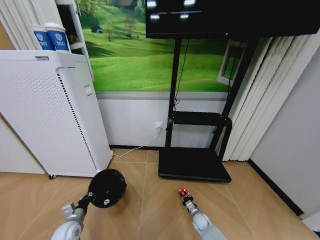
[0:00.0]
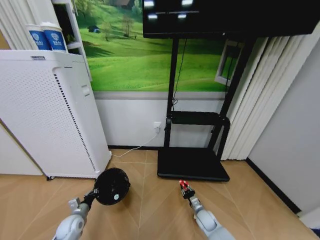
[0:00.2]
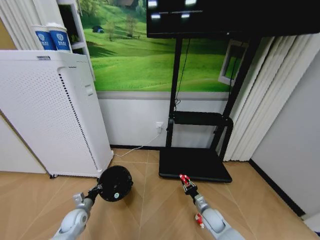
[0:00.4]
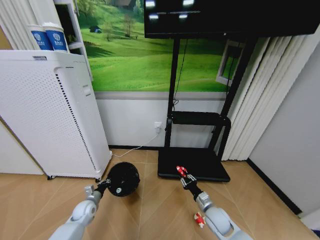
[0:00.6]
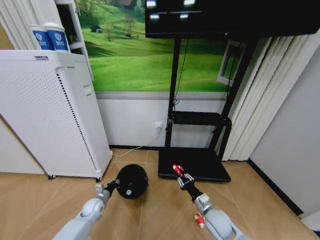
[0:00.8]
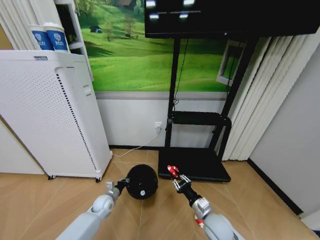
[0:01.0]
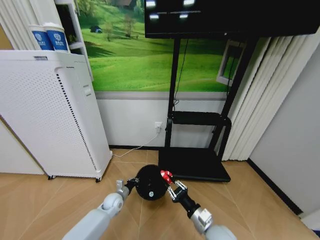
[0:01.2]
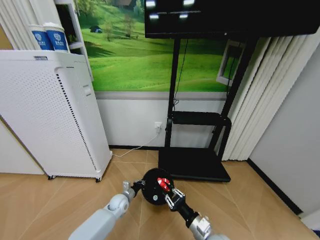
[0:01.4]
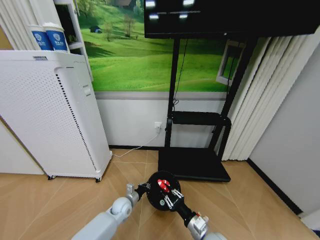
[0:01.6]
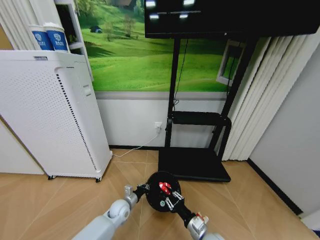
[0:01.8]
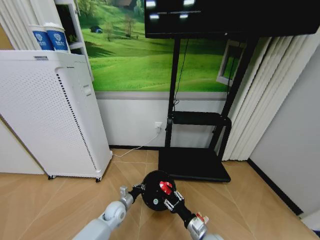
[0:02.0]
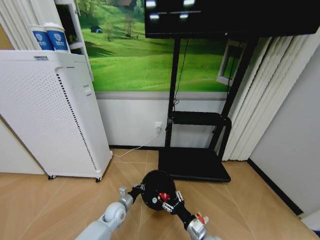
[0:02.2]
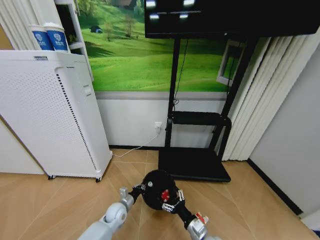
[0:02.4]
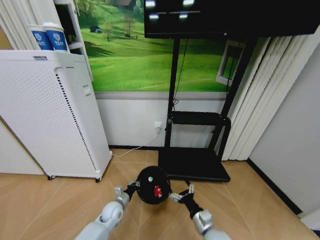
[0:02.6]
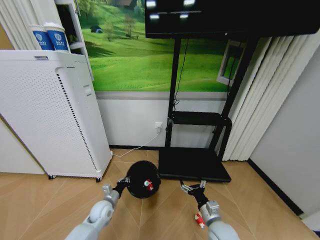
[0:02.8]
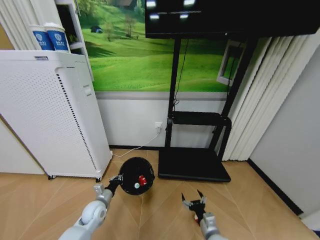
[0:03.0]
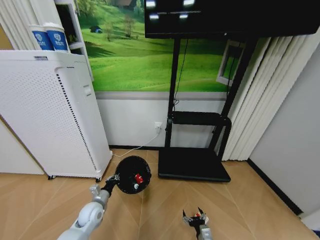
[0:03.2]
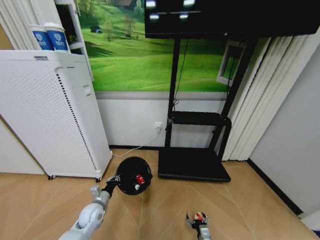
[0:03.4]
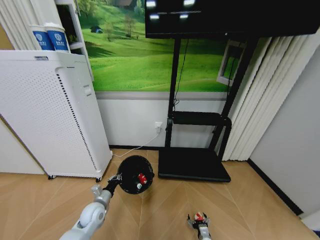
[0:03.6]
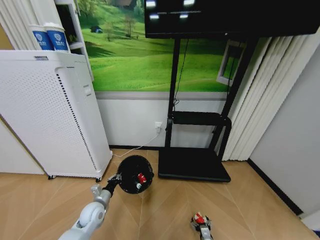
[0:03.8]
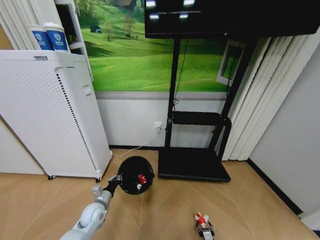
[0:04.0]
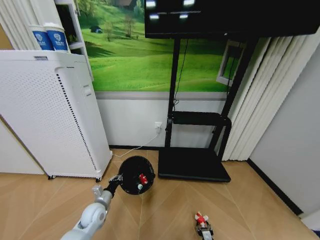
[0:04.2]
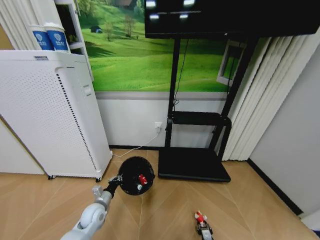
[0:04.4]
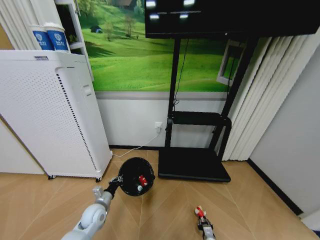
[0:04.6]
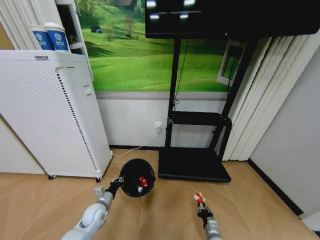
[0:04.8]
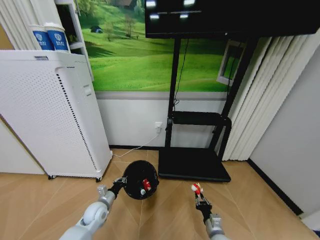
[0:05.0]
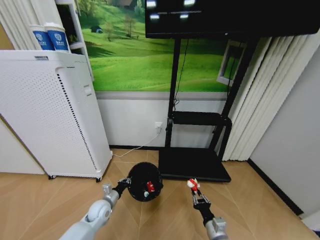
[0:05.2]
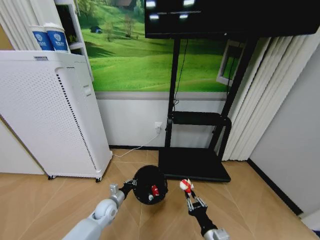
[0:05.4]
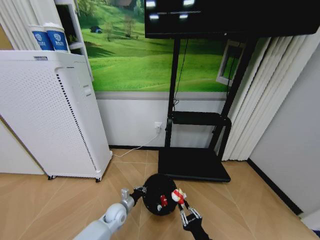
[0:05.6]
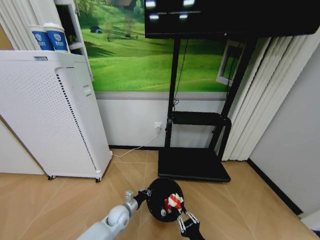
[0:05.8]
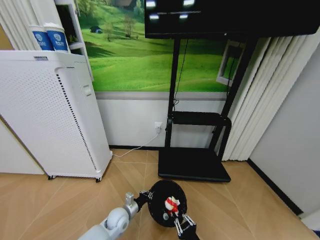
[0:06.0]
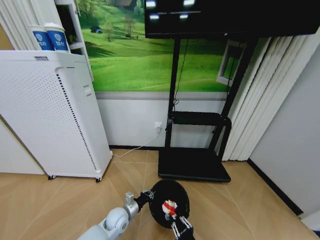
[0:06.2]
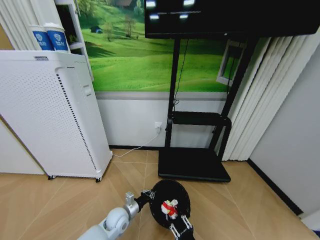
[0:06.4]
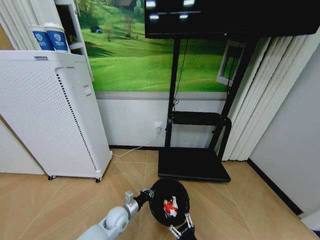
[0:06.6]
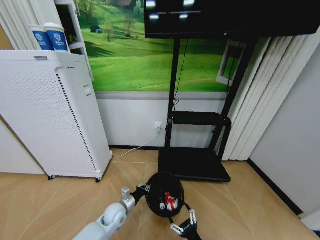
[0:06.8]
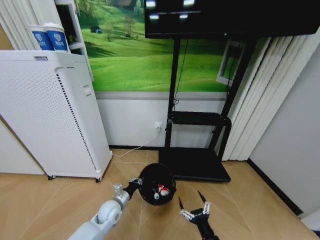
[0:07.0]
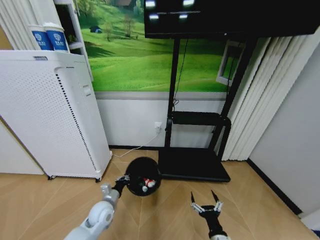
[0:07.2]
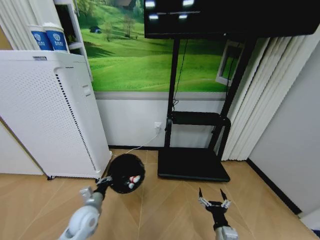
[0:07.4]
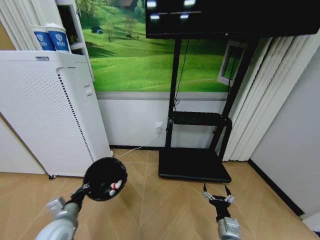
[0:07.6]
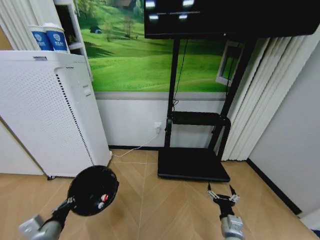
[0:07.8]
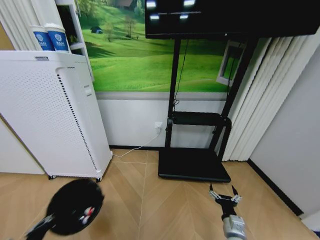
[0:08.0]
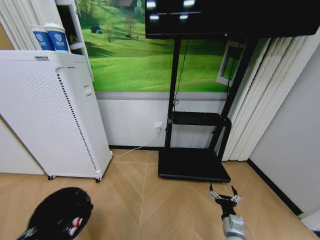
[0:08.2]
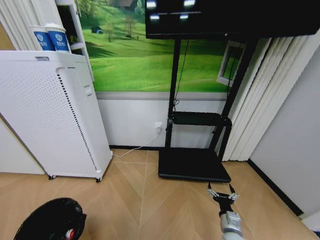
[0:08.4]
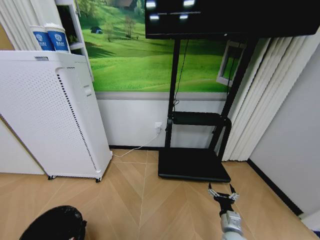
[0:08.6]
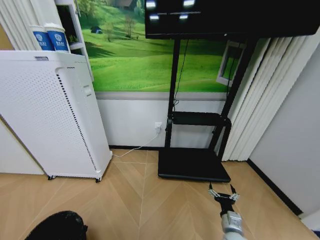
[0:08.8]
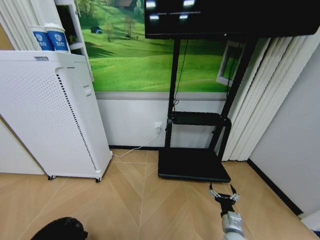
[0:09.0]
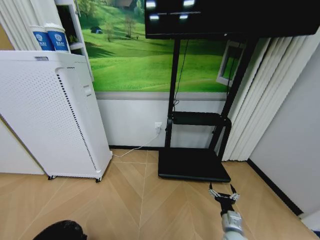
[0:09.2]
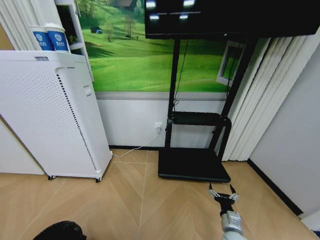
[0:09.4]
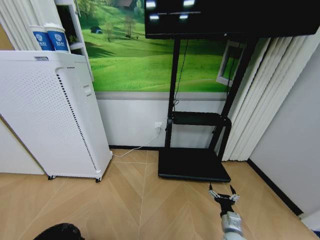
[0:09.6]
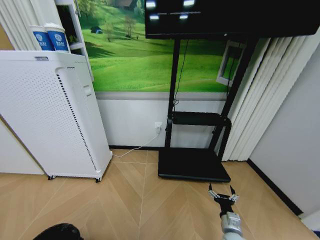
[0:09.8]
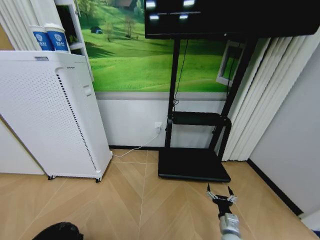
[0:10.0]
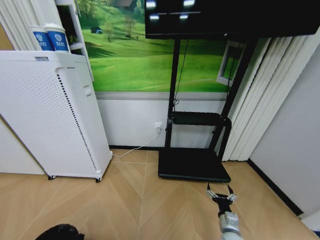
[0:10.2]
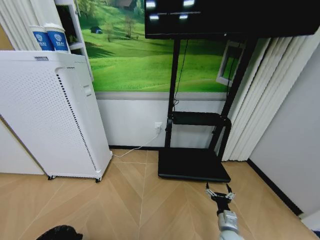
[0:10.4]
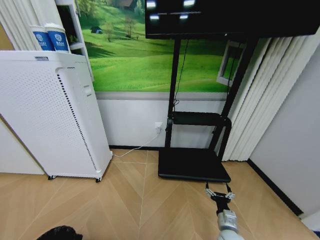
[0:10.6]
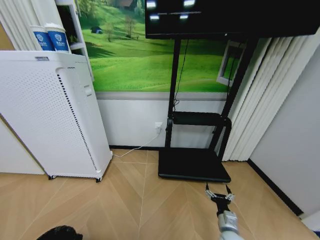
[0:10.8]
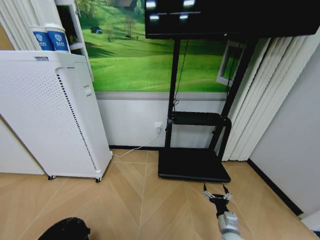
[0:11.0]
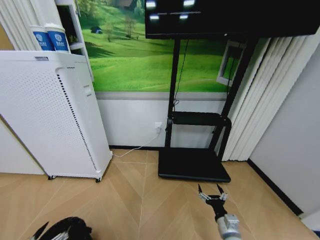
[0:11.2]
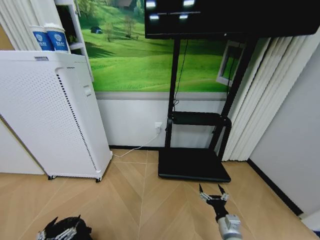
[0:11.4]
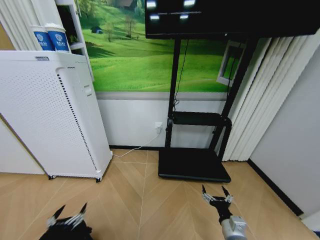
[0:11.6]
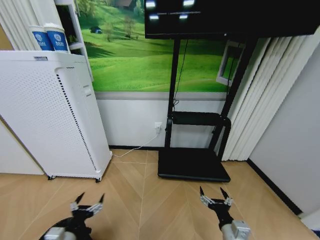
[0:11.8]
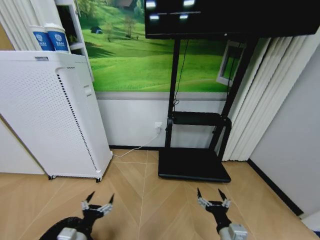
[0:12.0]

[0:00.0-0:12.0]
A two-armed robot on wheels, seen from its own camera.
Task of the whole recording: Pick up the trash bin and place the garbage on the floor into it.
0:00.0 to 0:01.6: The right gripper moves upward and backward, some 30 cm. The left gripper goes approximately 25 cm to the right and forward.
0:01.6 to 0:03.0: The right gripper shifts about 10 cm downward, and opens up. The left gripper moves to the left and upward, about 10 cm.
0:03.0 to 0:04.4: The right gripper is displaced downward by some 20 cm, and closes up.
0:04.4 to 0:06.0: The right gripper travels upward and backward by some 25 cm, while the left gripper shifts approximately 10 cm to the right.
0:06.0 to 0:07.6: The right gripper is displaced forward and to the right by roughly 10 cm, and opens its fingers; the left gripper moves to the left, upward and backward, approximately 25 cm.
0:07.6 to 0:09.0: The right gripper ends up approximately 5 cm from where it was; the left gripper shifts some 20 cm backward.
0:09.0 to 0:10.4: The grippers stay close to where they were, moving slightly.
0:10.4 to 0:12.0: The right gripper shifts roughly 15 cm upward, backward and to the left. Meanwhile the left gripper heads forward, to the right and upward, covering some 20 cm, and opens its fingers.

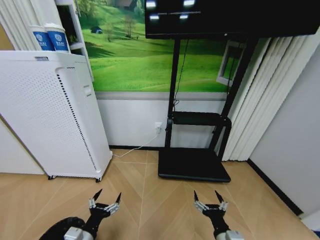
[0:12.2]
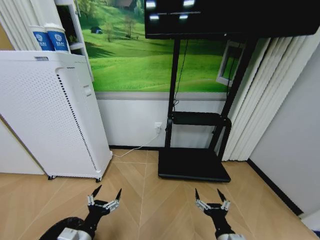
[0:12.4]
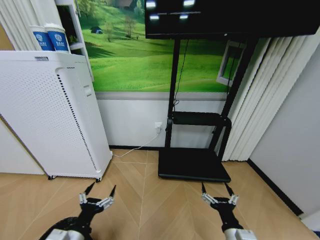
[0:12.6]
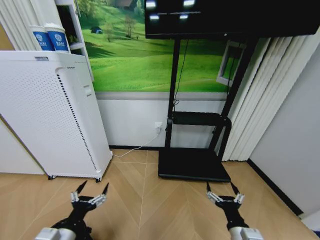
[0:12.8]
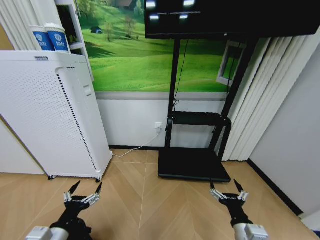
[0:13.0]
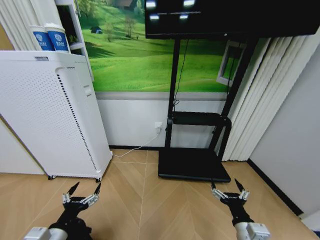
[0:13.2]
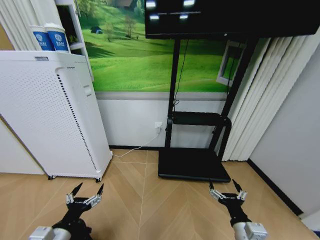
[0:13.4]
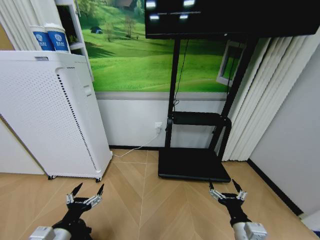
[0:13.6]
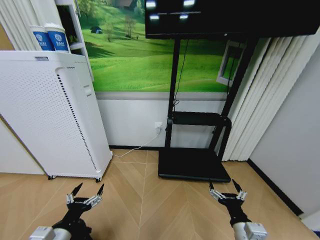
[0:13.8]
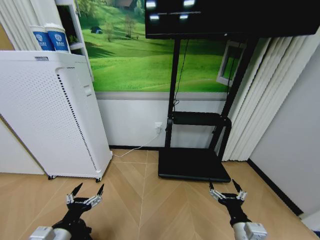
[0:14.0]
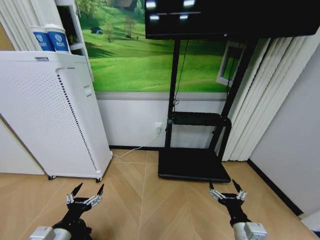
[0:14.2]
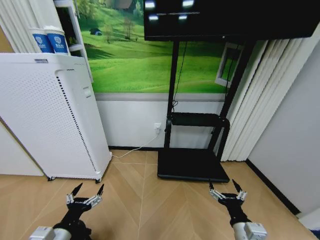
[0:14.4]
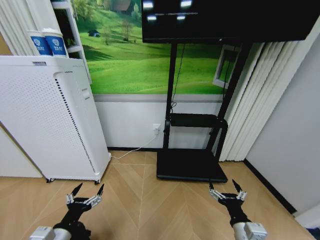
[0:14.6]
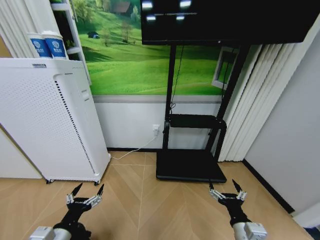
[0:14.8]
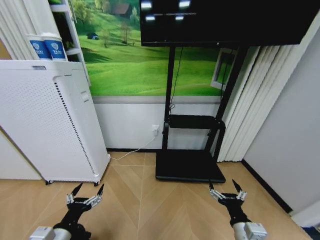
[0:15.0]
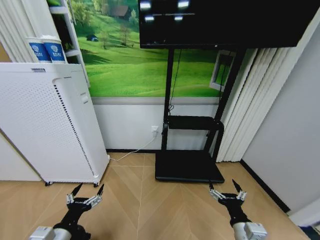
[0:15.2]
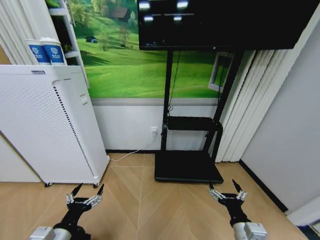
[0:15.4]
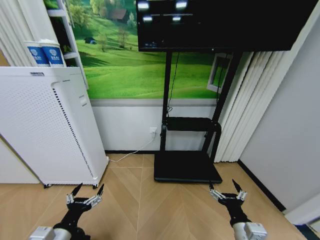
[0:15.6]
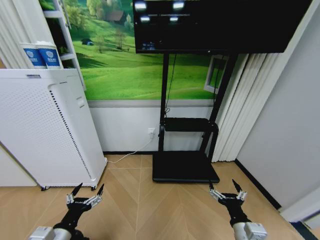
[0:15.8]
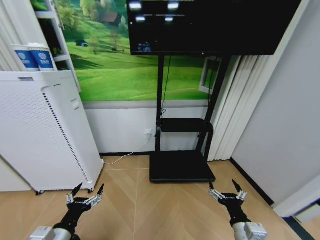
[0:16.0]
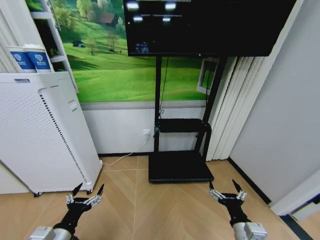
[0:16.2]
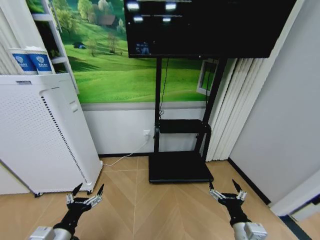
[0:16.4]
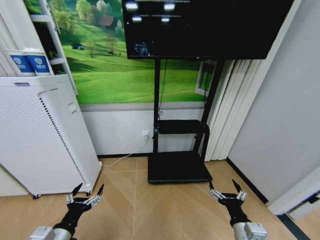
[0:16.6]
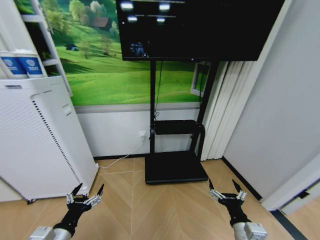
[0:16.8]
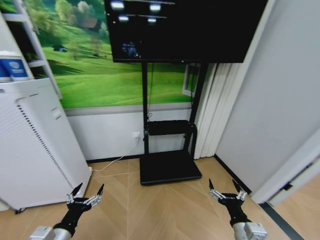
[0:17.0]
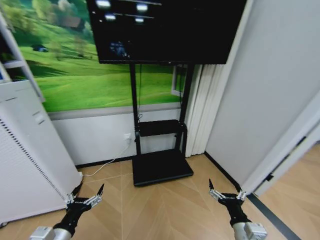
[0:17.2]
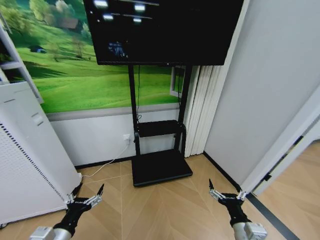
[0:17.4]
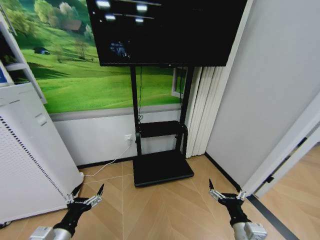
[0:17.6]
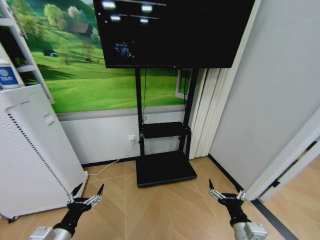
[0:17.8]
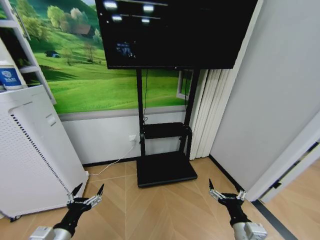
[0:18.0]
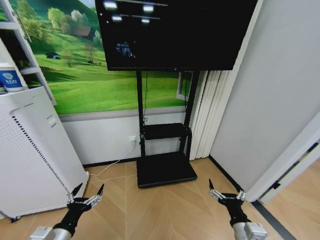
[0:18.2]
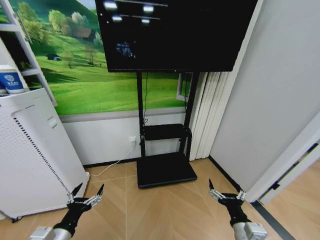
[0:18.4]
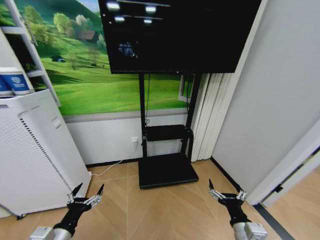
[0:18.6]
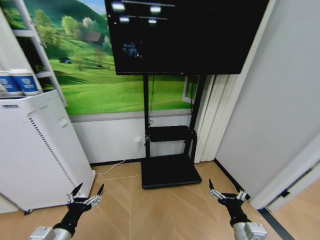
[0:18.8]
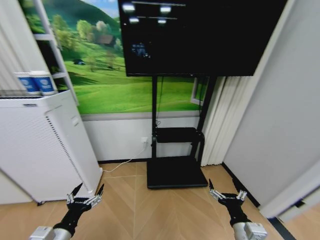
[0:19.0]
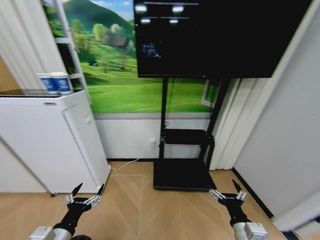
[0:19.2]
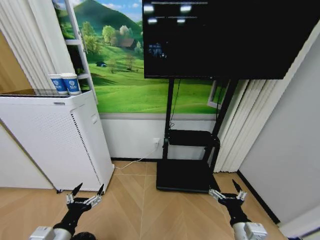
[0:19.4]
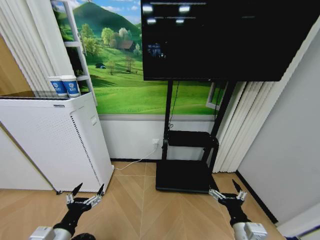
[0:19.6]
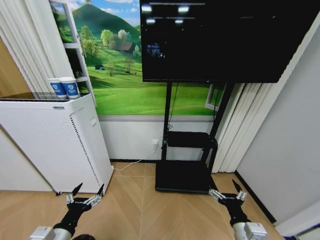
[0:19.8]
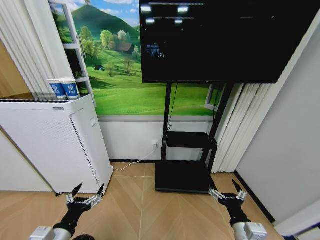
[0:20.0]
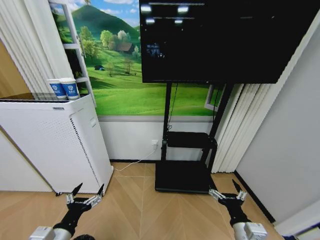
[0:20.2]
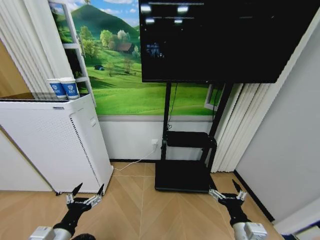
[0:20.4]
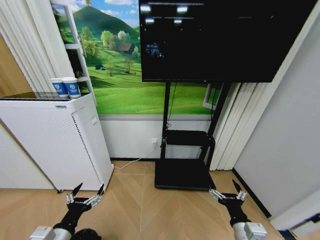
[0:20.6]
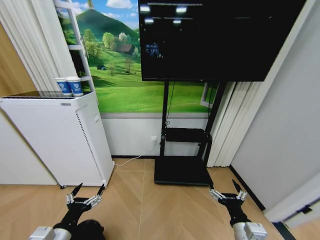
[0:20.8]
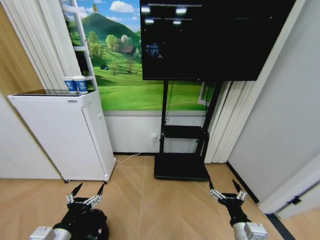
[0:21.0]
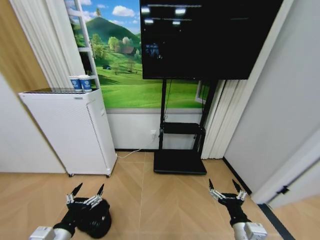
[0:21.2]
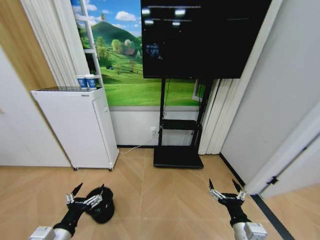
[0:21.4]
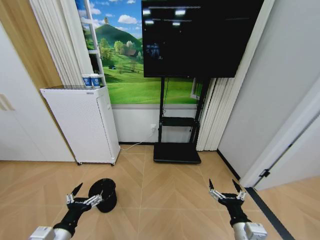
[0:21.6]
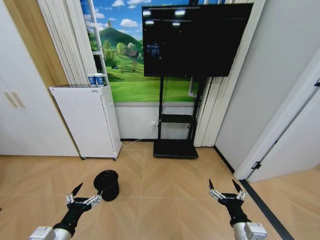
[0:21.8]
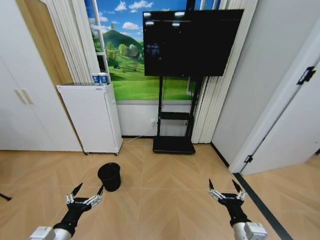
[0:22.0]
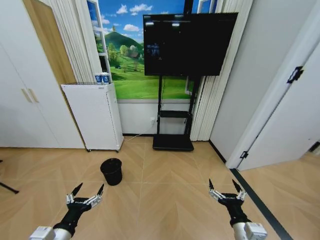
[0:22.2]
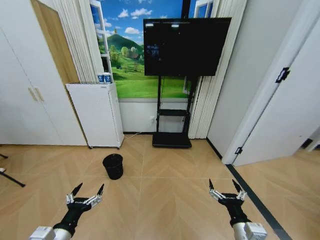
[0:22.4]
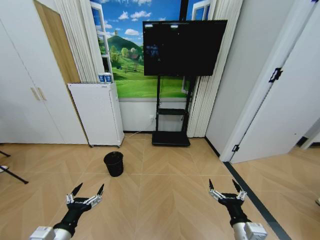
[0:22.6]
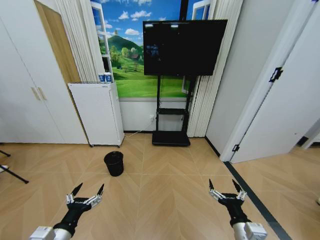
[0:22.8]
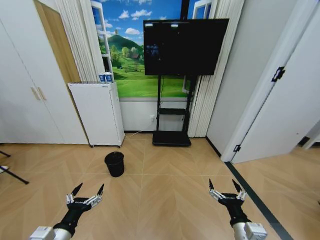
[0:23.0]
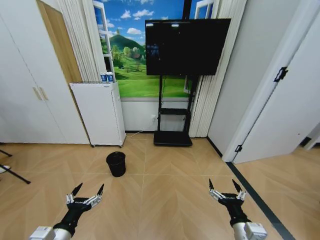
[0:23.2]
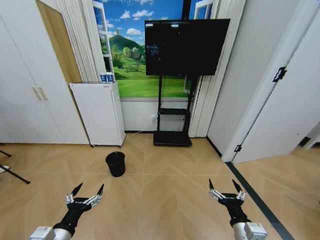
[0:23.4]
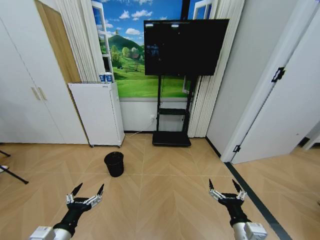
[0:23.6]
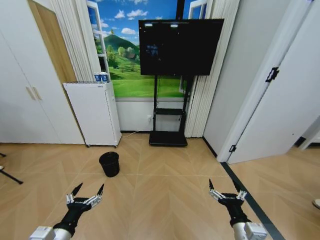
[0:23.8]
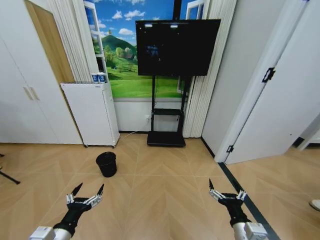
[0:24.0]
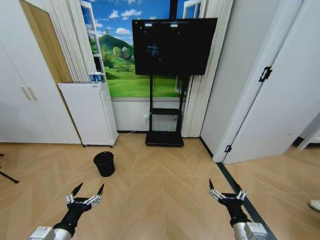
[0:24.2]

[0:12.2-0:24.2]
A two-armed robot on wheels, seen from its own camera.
Task of the whole recording: Pick up the trash bin and place the garbage on the floor into it.
0:12.2 to 0:13.8: The right gripper heads to the right, covering roughly 5 cm, while the left gripper shifts by roughly 5 cm.
